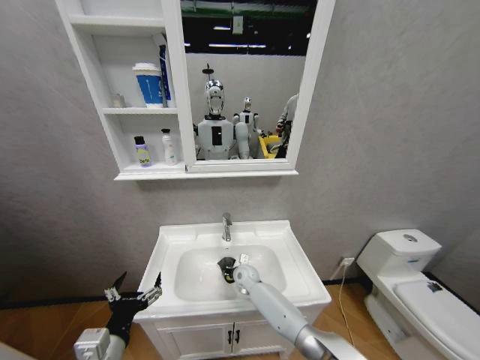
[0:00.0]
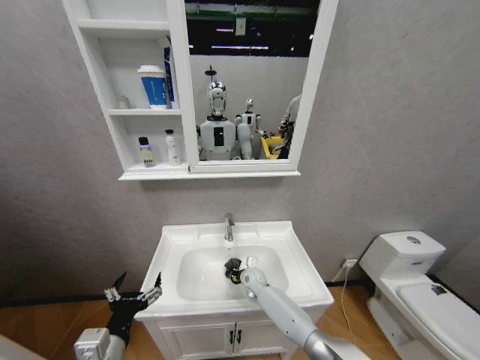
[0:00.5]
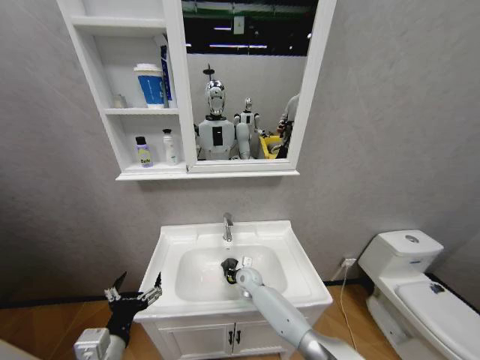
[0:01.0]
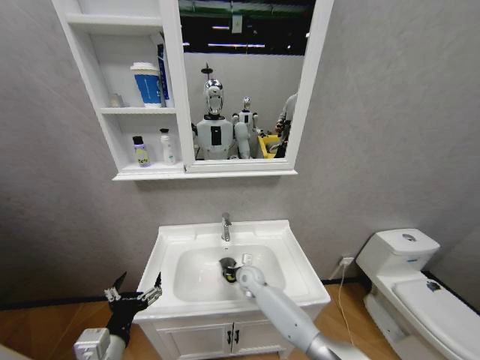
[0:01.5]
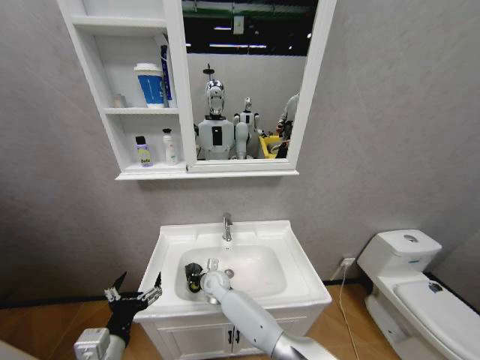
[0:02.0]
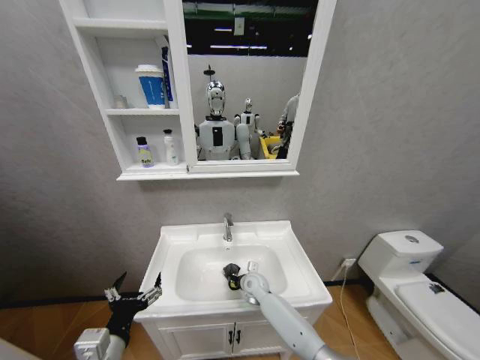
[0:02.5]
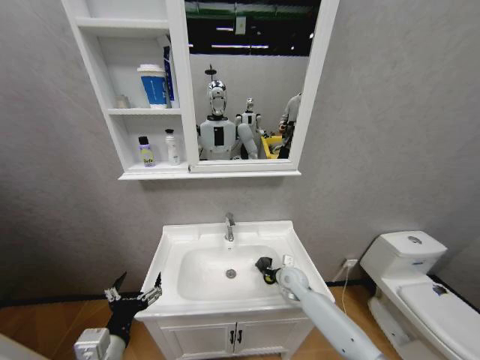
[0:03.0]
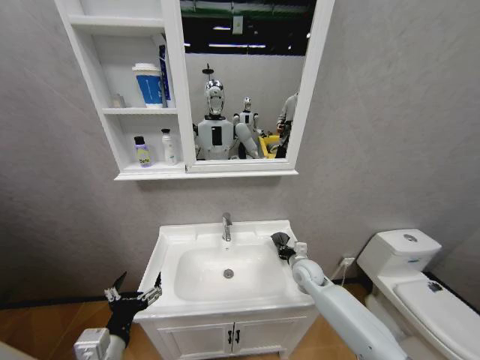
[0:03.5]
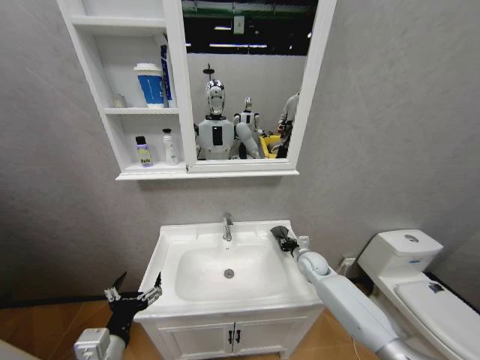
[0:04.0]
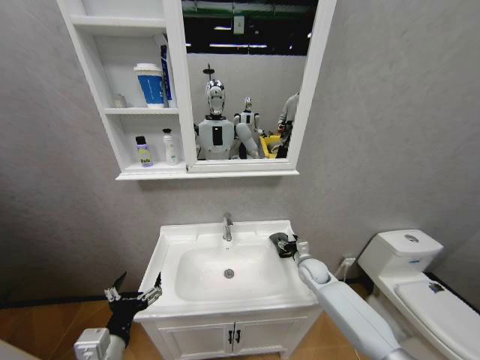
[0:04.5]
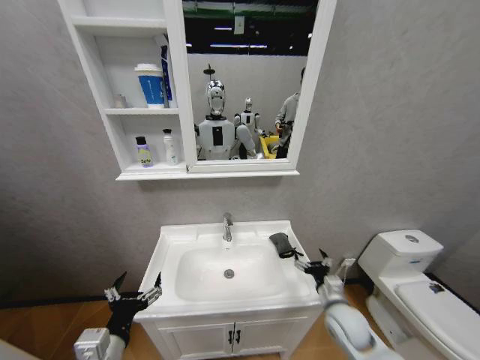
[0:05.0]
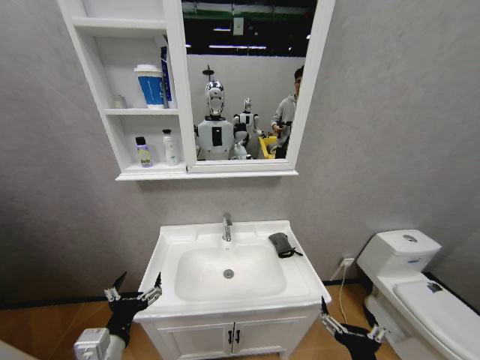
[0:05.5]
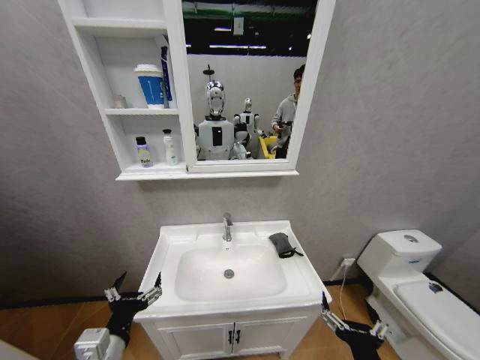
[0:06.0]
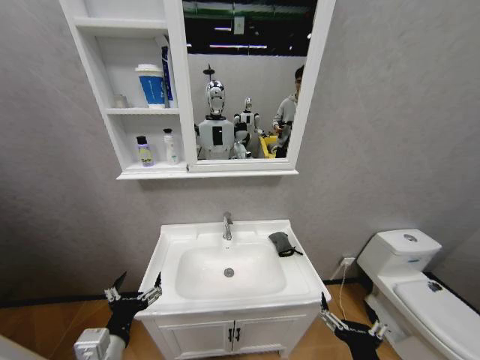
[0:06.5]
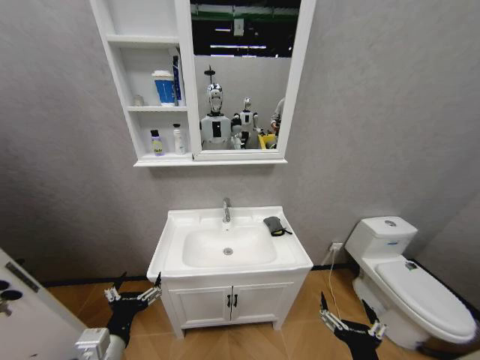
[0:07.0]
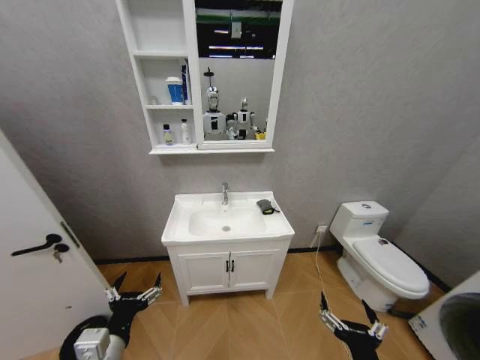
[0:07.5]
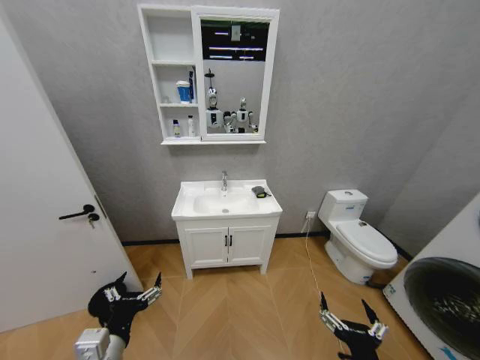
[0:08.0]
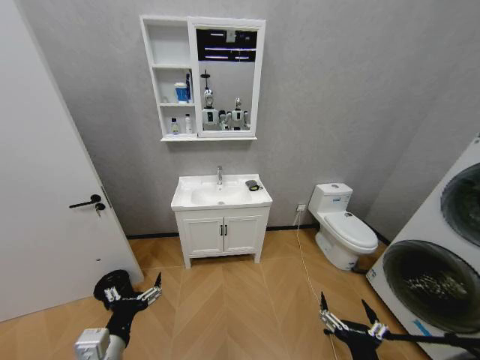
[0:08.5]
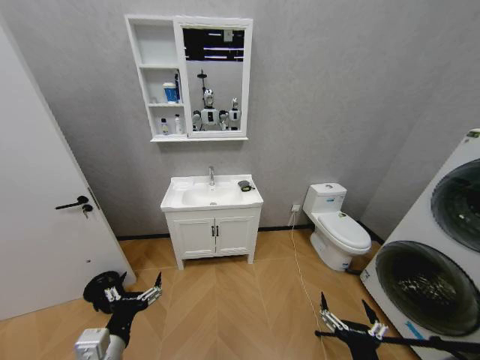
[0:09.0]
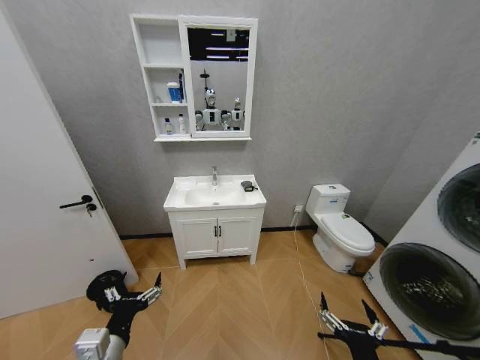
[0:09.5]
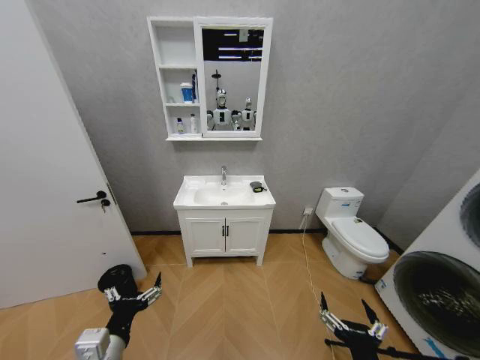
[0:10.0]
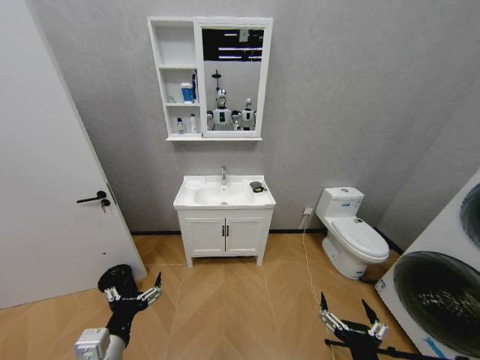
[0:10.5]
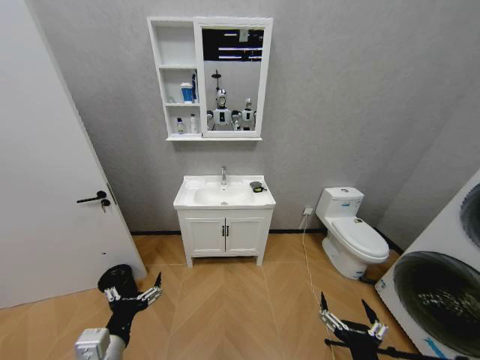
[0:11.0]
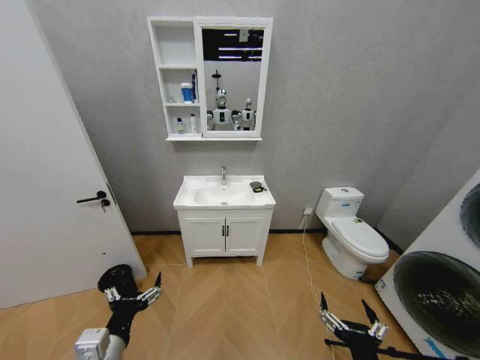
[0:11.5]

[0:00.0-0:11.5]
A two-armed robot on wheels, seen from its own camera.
Task of the whole recording: Move facial cleanser and shampoo from washbasin to cabinet, then wipe washbasin with towel.
0:00.0 to 0:02.0: The right gripper moves to the left, approximately 10 cm.
0:02.0 to 0:04.0: The right gripper shifts about 35 cm to the right.
0:04.0 to 0:06.0: The right gripper moves backward, some 40 cm, and opens its fingers.
0:09.5 to 0:11.5: The two grippers keep their place.

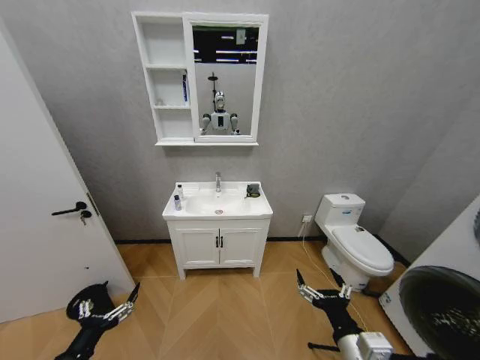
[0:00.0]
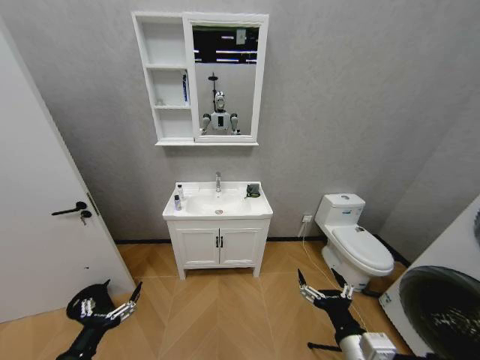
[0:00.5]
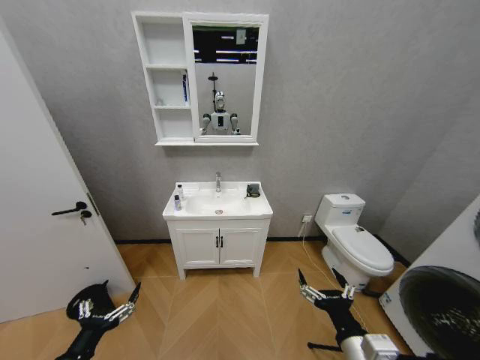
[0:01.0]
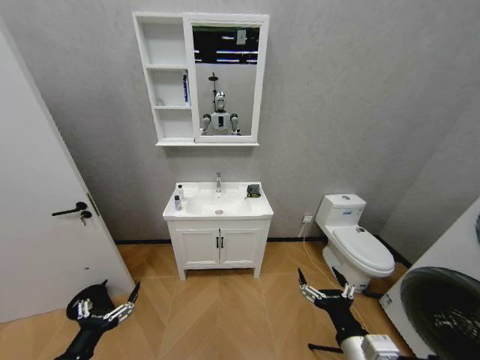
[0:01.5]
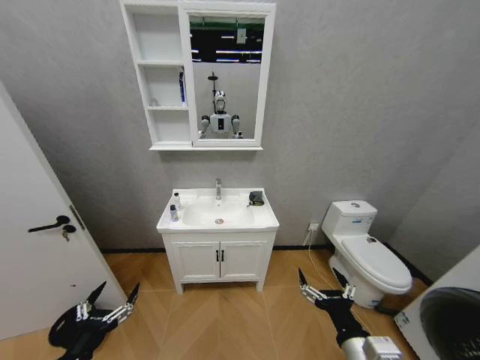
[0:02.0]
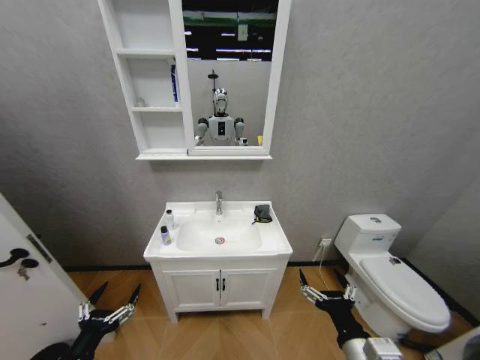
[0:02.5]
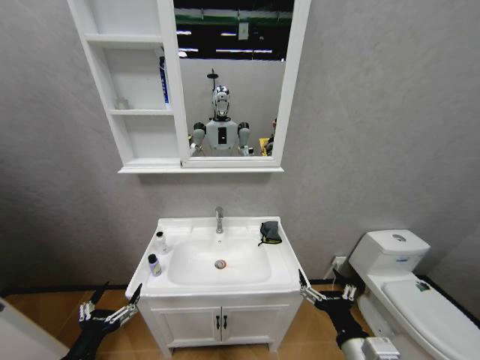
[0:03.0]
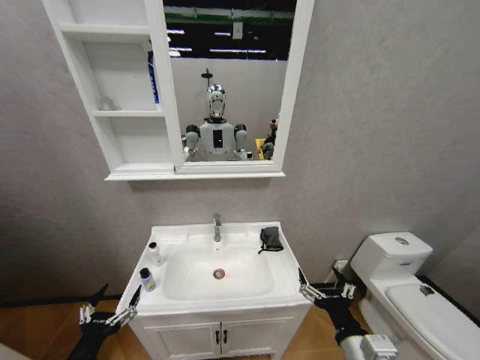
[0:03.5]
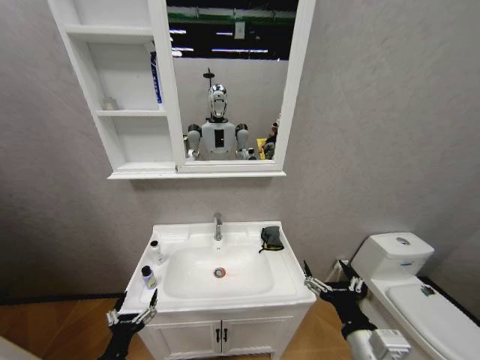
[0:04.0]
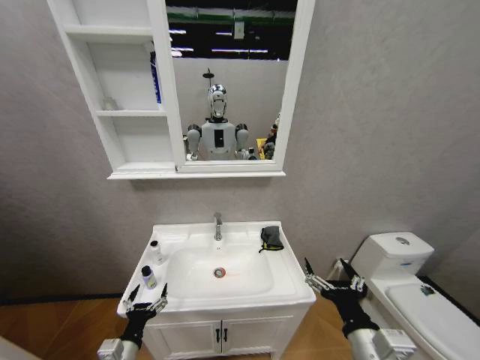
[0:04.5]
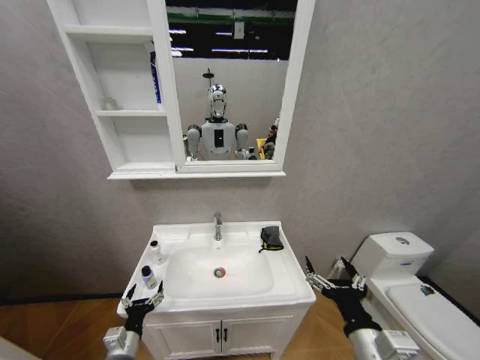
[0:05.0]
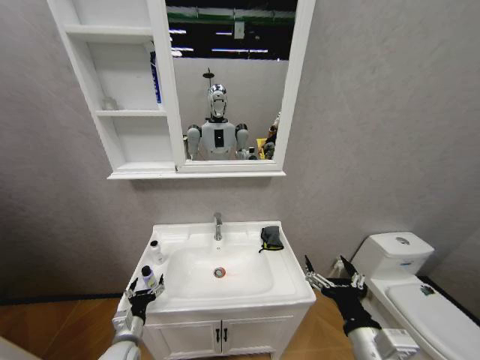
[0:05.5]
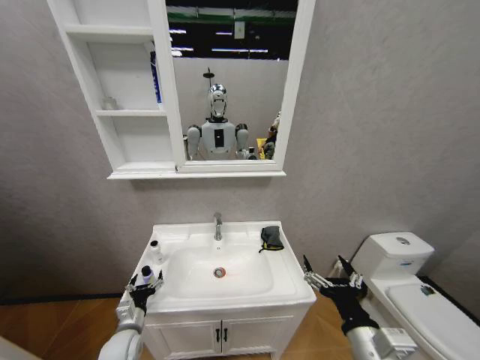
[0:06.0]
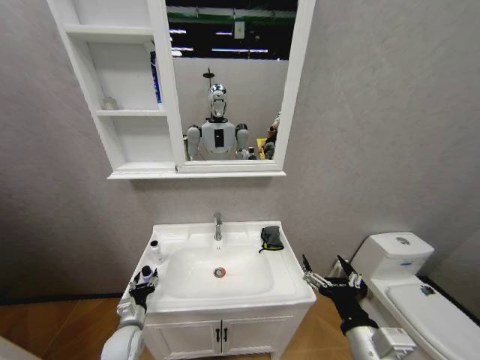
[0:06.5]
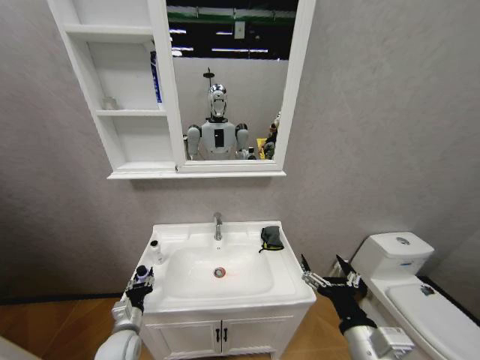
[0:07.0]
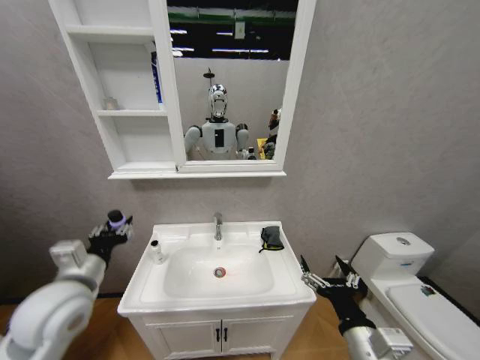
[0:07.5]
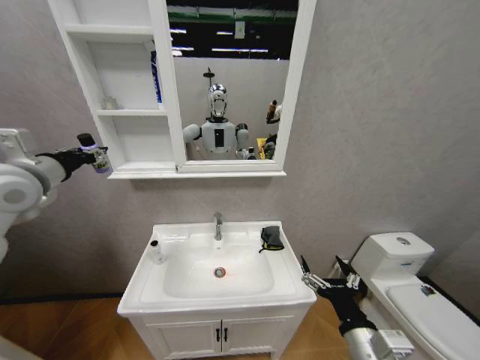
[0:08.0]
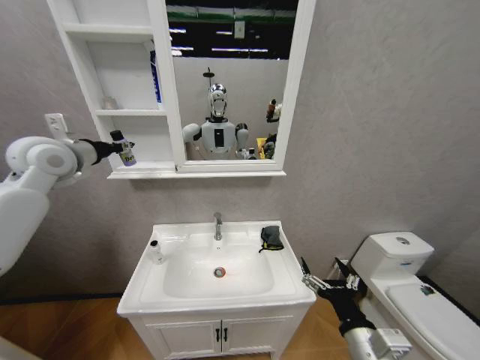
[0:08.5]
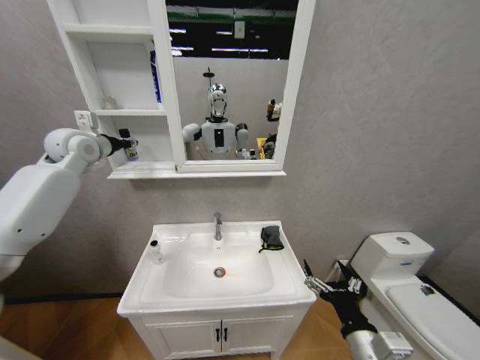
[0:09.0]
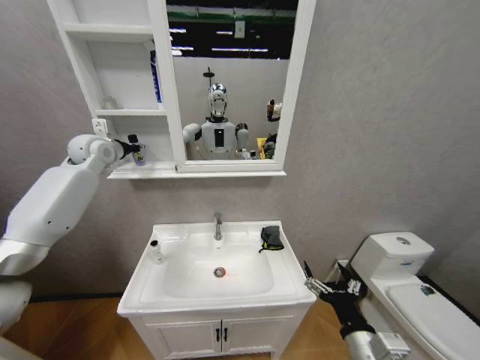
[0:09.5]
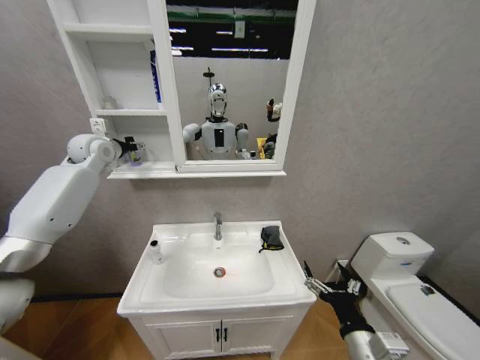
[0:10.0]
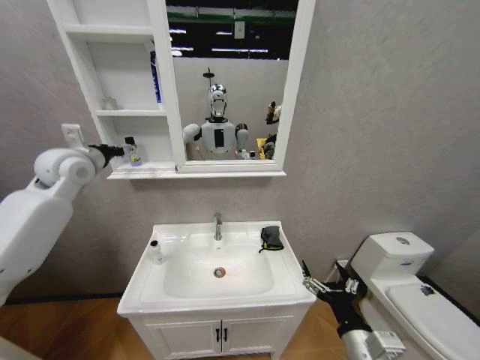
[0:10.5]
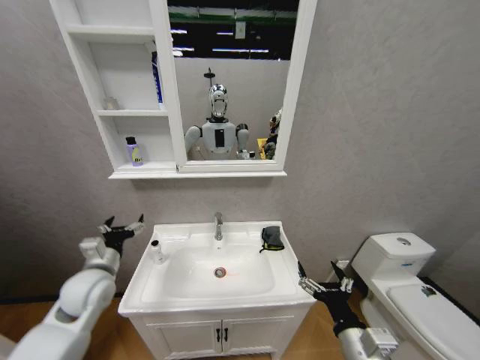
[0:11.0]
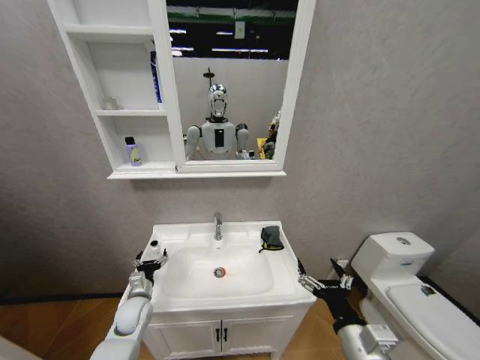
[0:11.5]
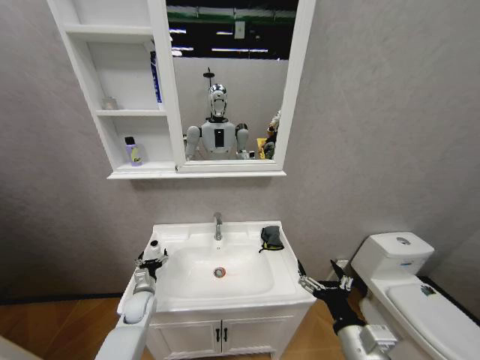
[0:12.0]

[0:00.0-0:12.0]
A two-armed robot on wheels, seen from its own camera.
Task of the whole recording: Move facial cleanser and shampoo from washbasin to cabinet, then wipe washbasin with towel.
0:02.0 to 0:04.0: The left gripper heads downward, covering about 5 cm.
0:04.0 to 0:06.0: The left gripper heads forward, covering roughly 15 cm.
0:06.0 to 0:08.0: The left gripper travels upward by roughly 50 cm, and closes up.
0:08.0 to 0:10.0: The left gripper goes roughly 20 cm forward, and opens.
0:10.0 to 0:12.0: The left gripper shifts roughly 50 cm downward, and opens up.

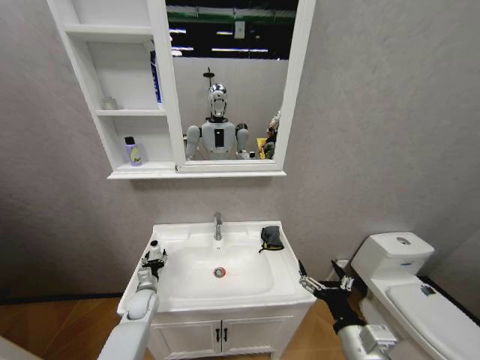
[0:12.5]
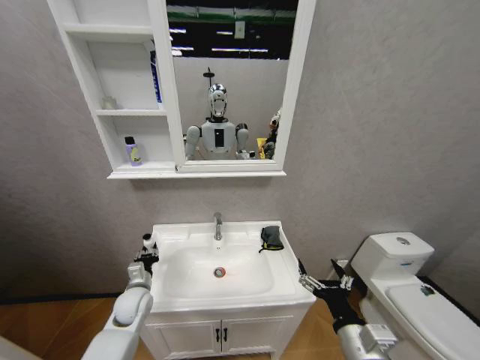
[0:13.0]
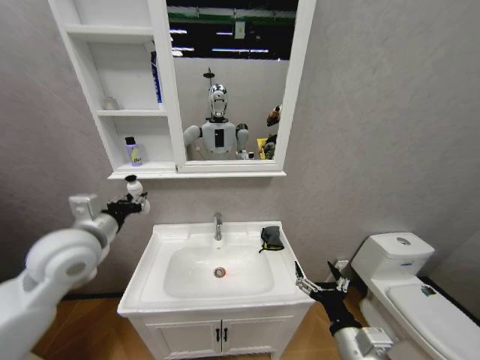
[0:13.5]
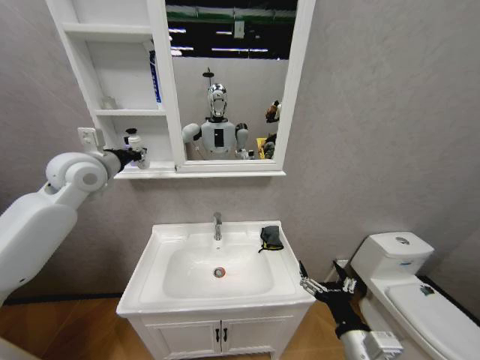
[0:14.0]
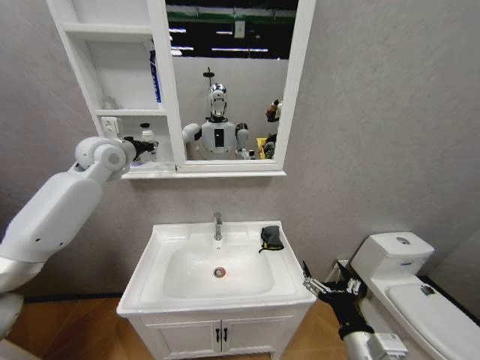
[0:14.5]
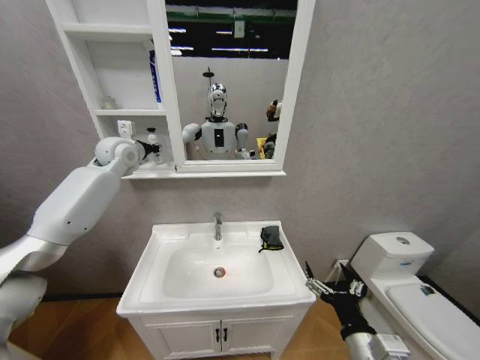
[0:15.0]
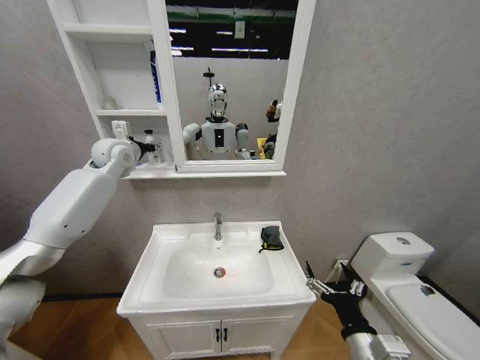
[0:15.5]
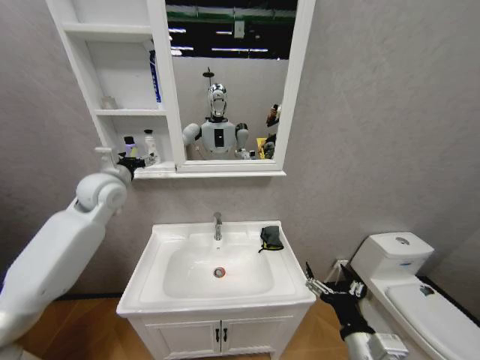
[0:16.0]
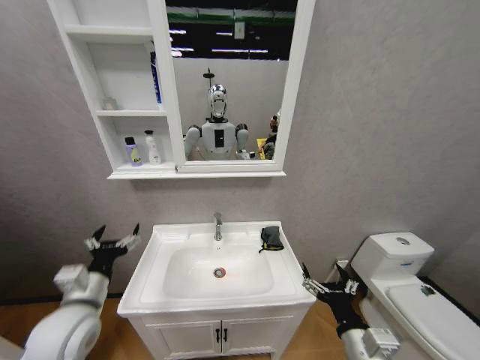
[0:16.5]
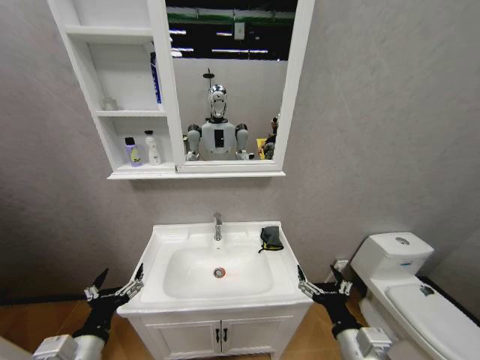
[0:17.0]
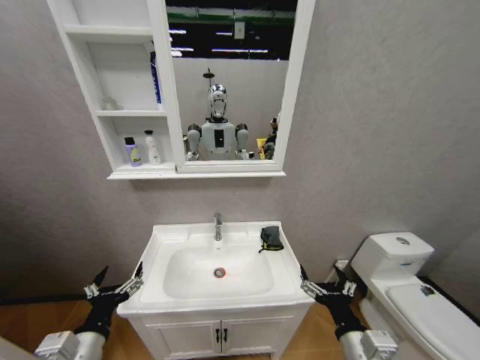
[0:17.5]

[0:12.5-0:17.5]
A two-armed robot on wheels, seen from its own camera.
Task of the whole recording: Move facial cleanser and shampoo from washbasin to cabinet, then wipe washbasin with towel.
0:12.5 to 0:15.0: The left gripper is displaced upward by approximately 50 cm, and closes its fingers.
0:15.0 to 0:17.5: The left gripper heads backward and downward, covering roughly 50 cm, and opens up.
